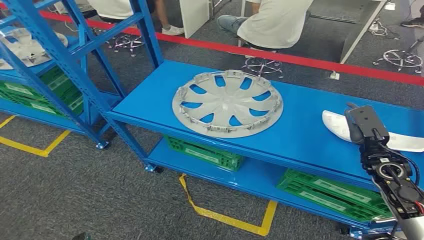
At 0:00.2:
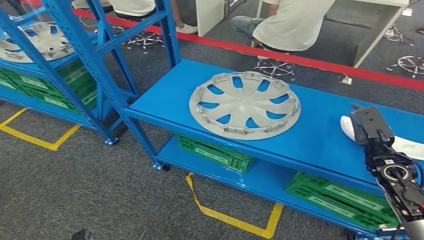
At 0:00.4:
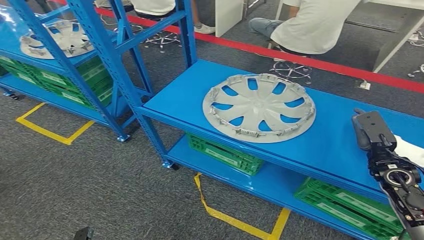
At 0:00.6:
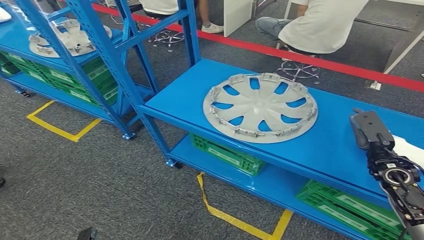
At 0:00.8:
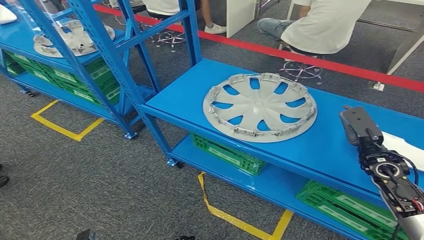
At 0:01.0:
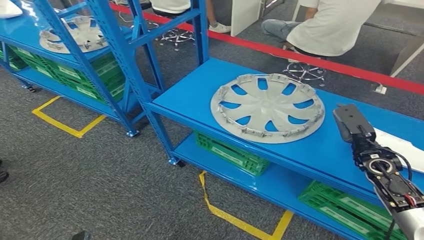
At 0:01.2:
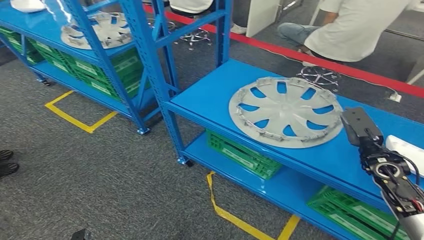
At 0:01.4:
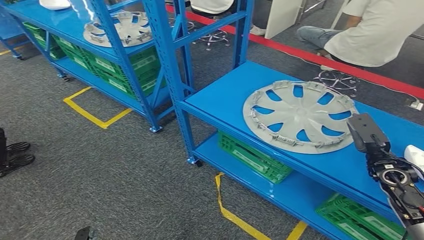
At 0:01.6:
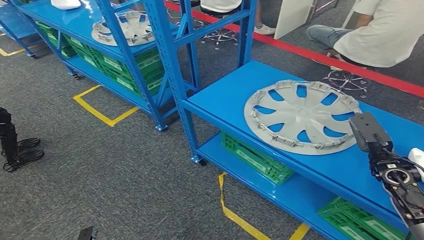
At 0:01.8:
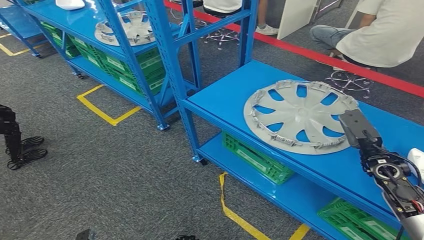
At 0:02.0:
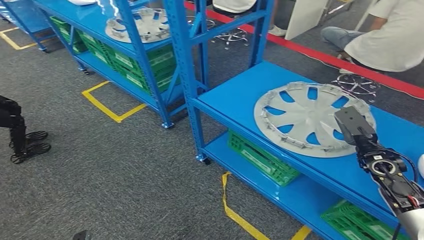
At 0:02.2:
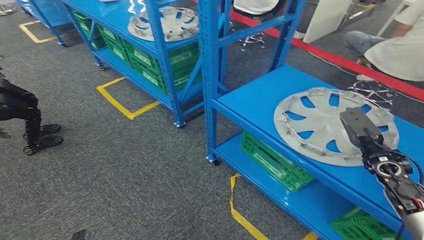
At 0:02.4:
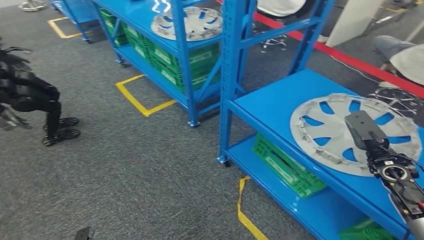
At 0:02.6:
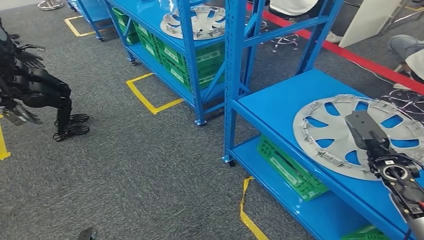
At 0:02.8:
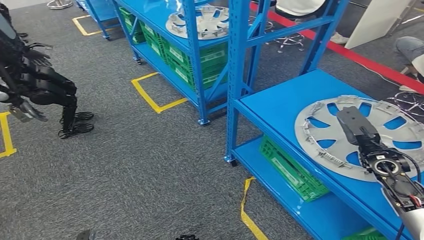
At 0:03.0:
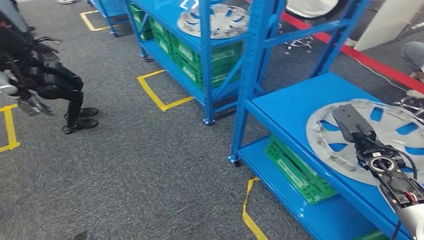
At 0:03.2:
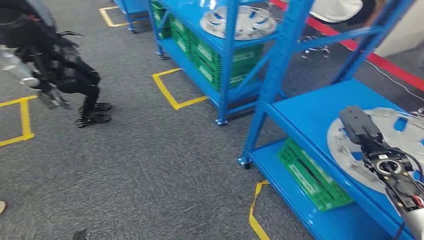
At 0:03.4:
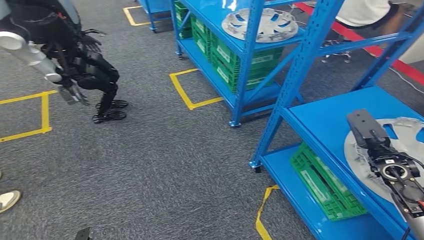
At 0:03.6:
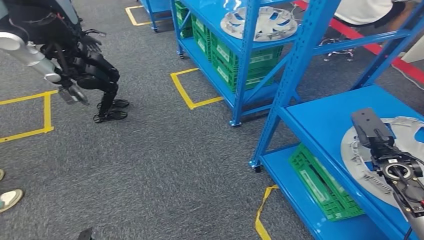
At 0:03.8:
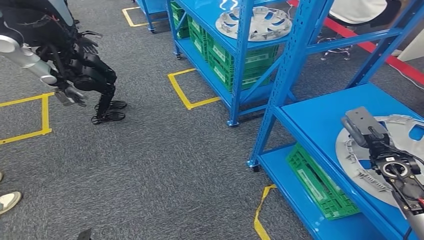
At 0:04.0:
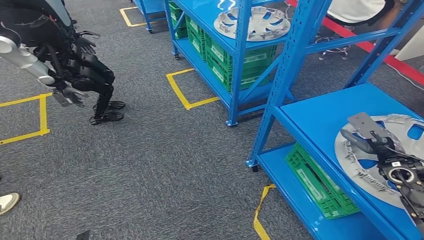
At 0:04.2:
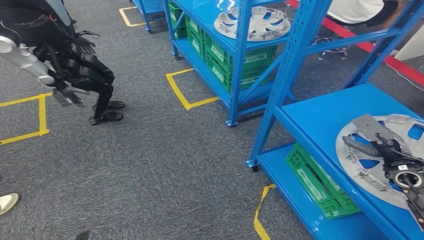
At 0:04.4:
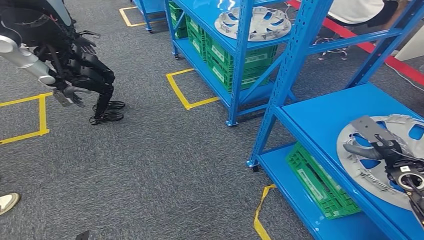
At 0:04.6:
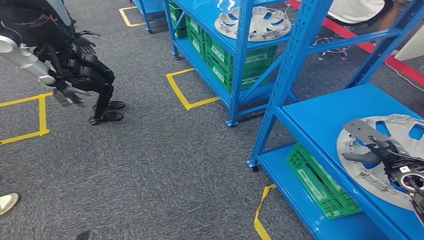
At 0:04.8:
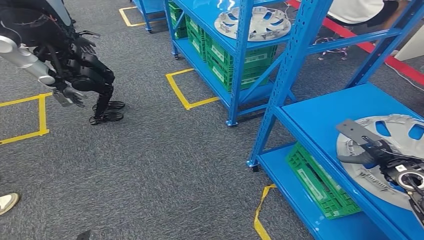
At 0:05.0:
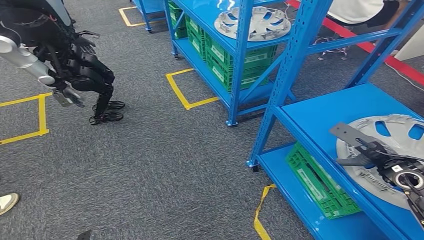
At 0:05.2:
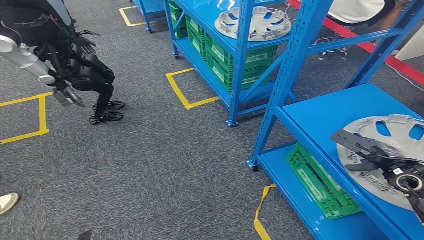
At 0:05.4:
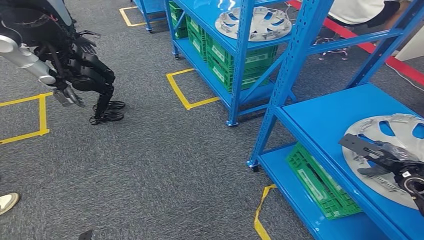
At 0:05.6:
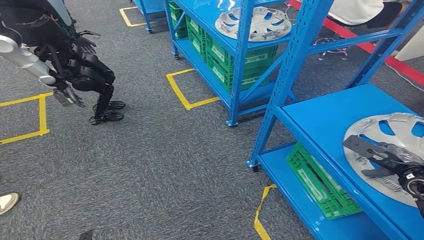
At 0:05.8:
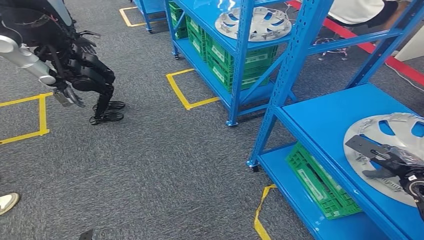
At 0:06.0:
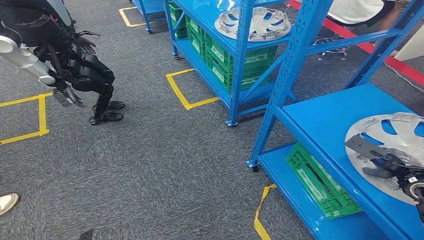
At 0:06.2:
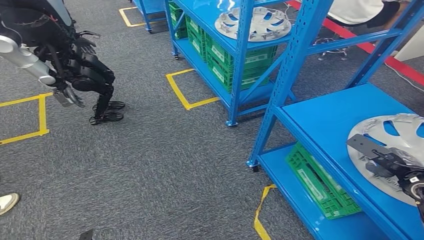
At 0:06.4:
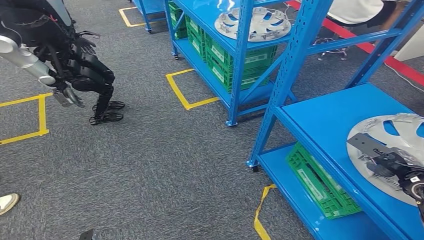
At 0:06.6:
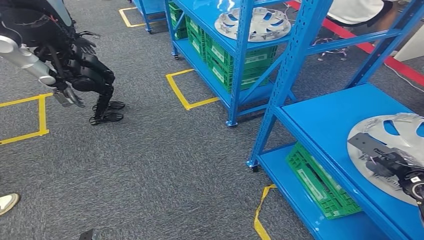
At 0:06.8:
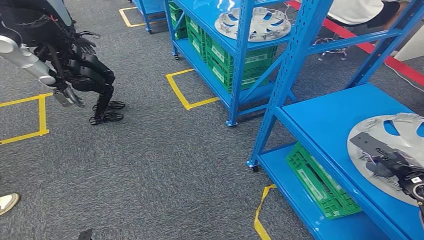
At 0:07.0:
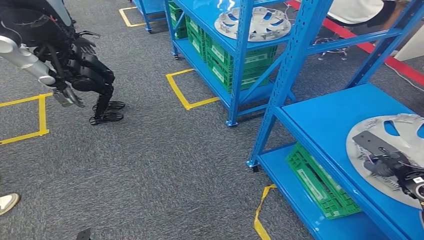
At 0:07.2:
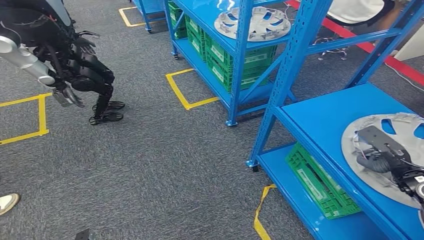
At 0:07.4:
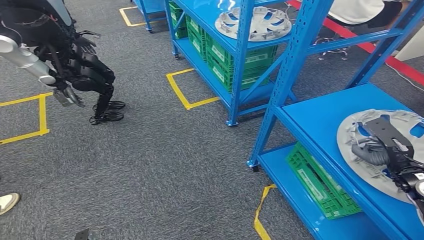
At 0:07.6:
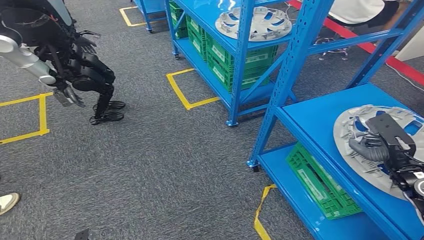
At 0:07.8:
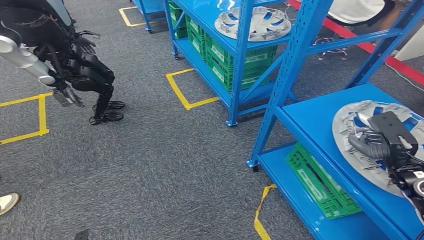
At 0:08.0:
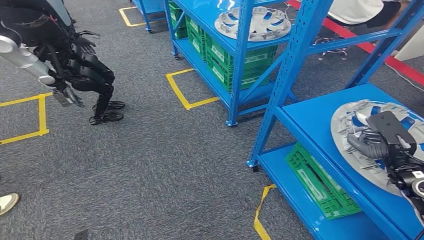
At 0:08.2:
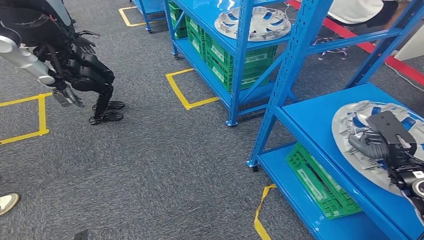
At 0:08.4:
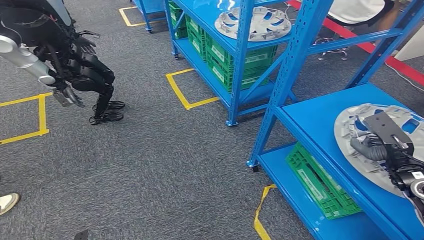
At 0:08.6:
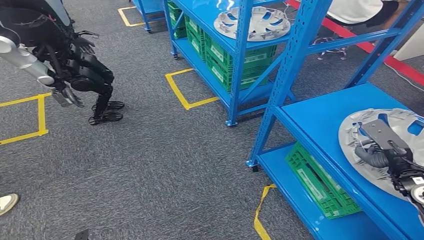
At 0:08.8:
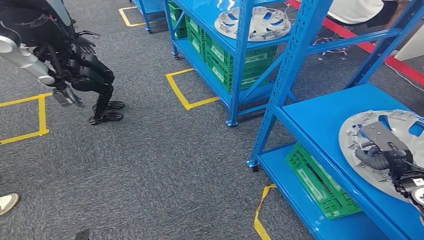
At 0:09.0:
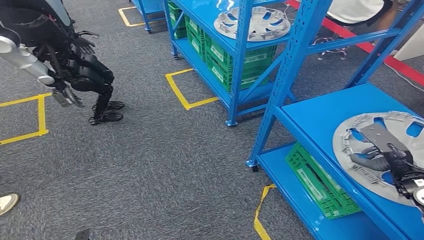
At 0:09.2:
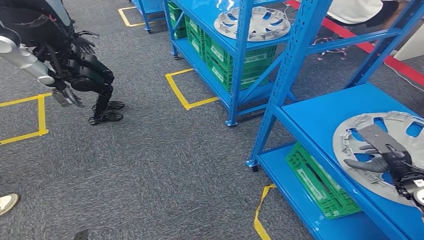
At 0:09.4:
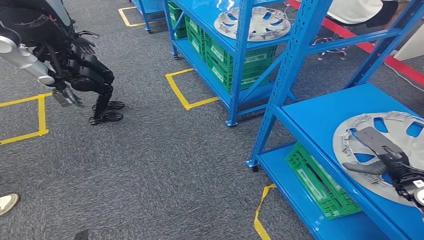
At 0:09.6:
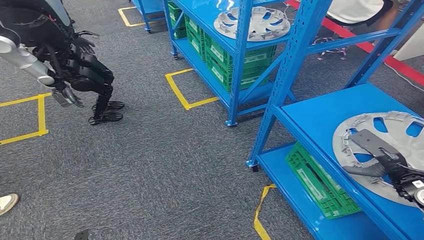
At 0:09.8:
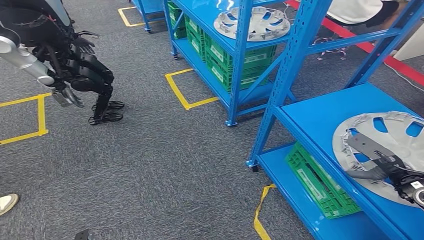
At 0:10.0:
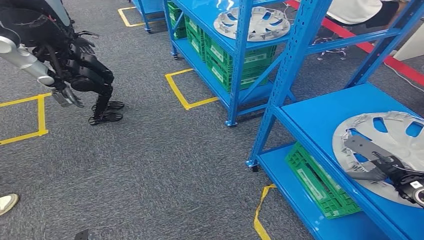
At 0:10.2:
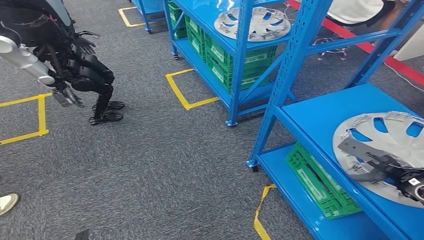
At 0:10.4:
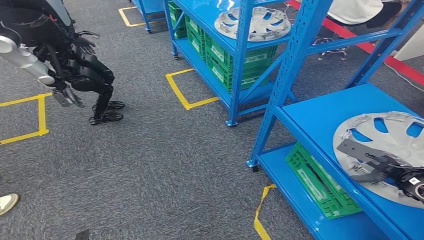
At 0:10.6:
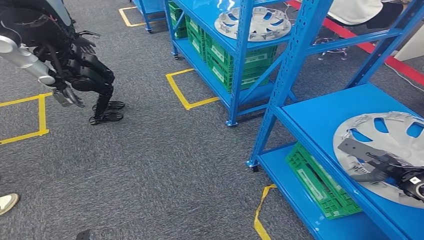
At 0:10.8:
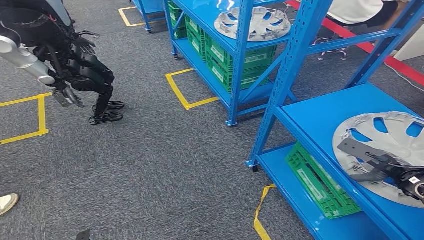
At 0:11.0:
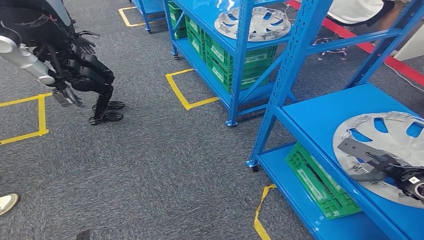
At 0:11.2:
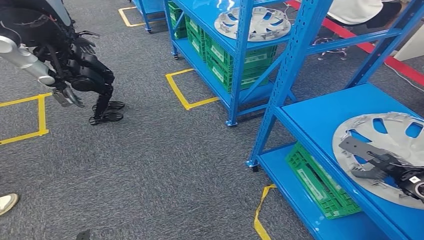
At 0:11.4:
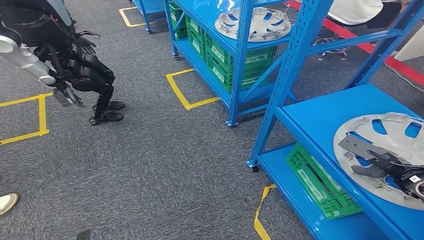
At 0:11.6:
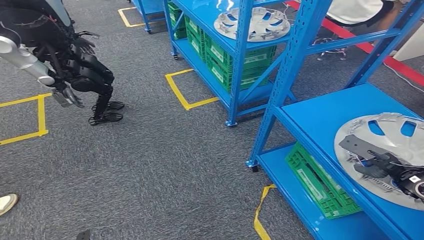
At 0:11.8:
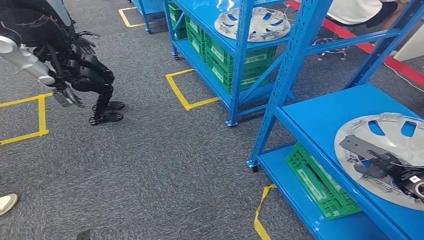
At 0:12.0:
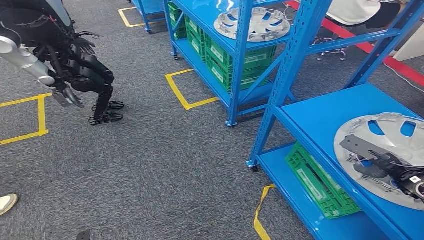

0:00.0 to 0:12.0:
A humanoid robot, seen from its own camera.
0:07.6 to 0:09.0: The hands make only small movements.
0:10.4 to 0:12.0: The hands stay close to where they were, moving slightly.

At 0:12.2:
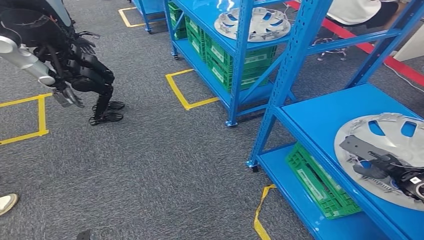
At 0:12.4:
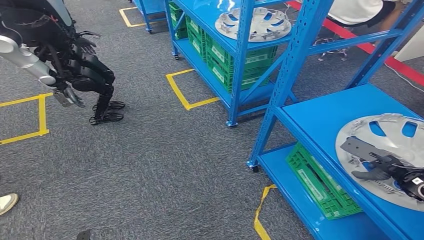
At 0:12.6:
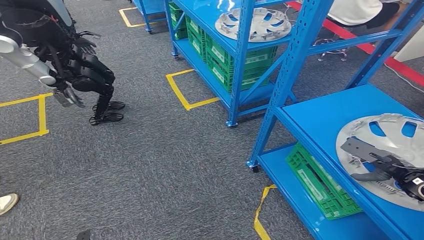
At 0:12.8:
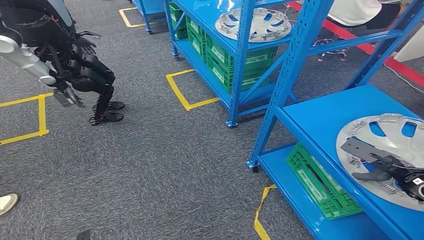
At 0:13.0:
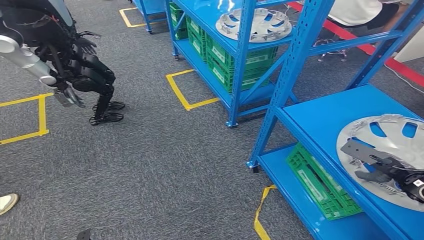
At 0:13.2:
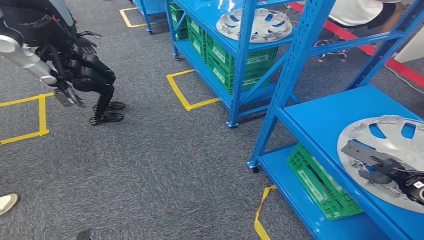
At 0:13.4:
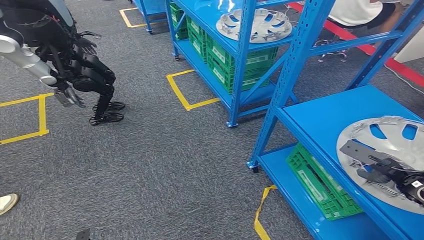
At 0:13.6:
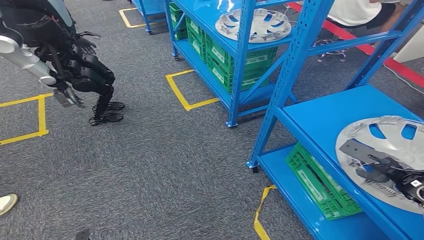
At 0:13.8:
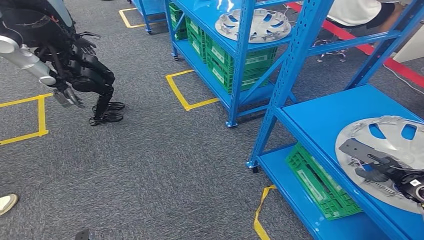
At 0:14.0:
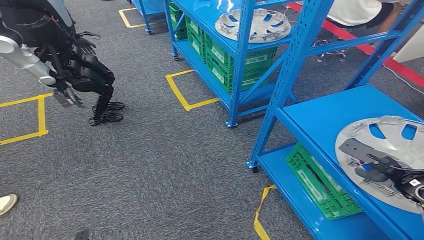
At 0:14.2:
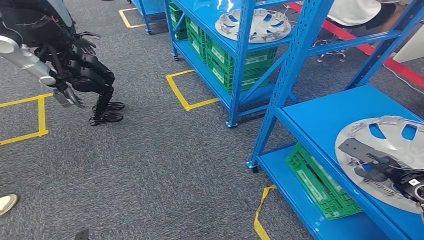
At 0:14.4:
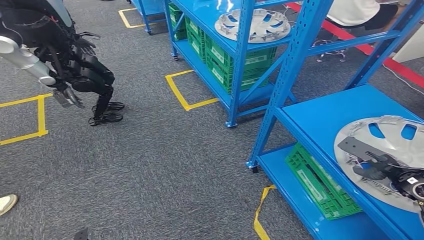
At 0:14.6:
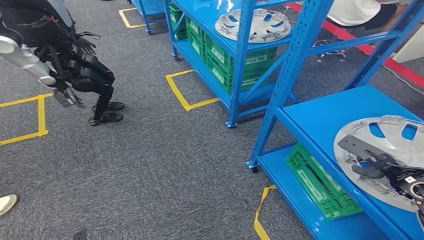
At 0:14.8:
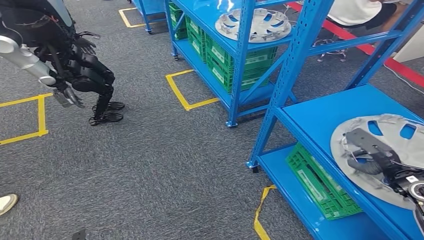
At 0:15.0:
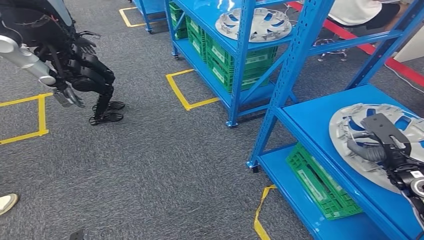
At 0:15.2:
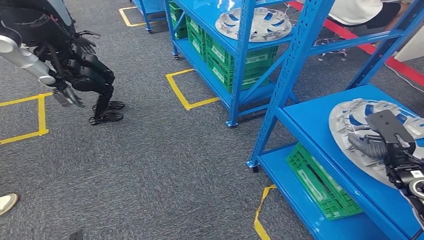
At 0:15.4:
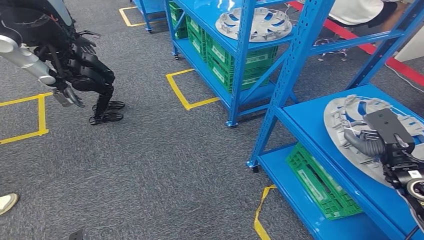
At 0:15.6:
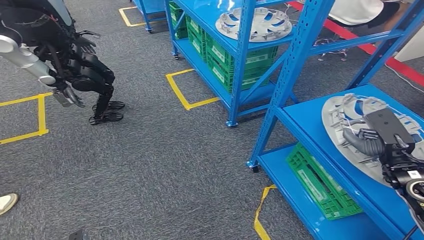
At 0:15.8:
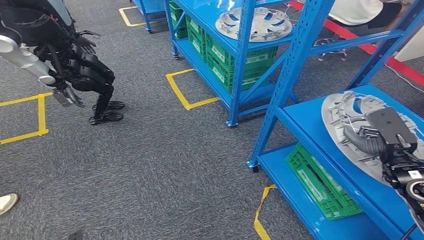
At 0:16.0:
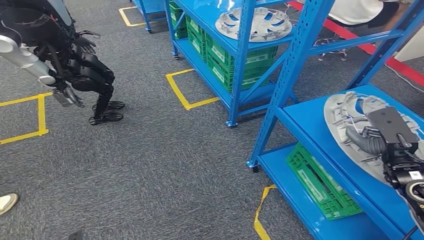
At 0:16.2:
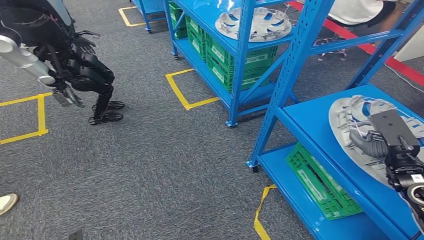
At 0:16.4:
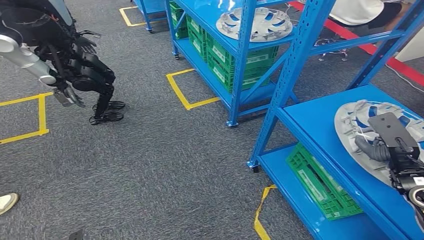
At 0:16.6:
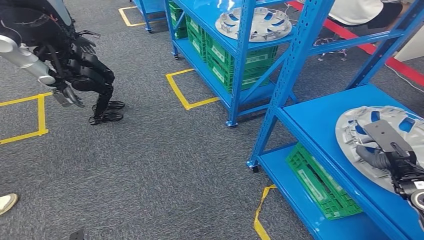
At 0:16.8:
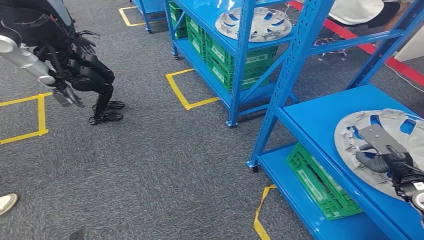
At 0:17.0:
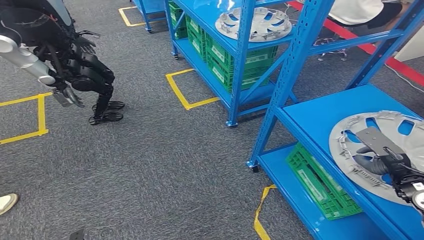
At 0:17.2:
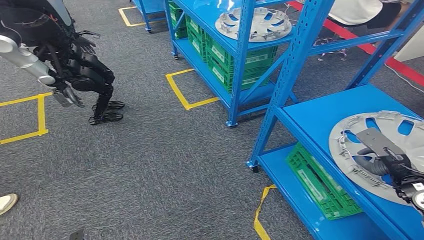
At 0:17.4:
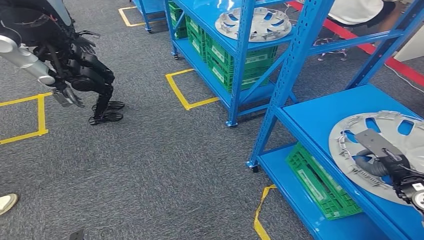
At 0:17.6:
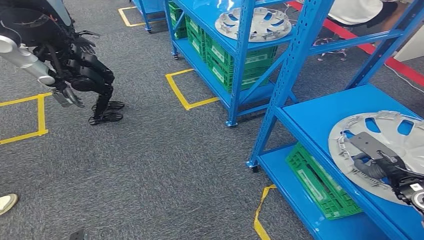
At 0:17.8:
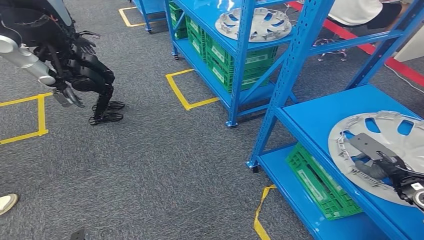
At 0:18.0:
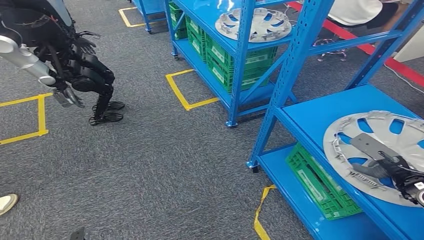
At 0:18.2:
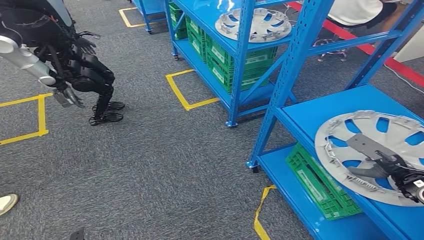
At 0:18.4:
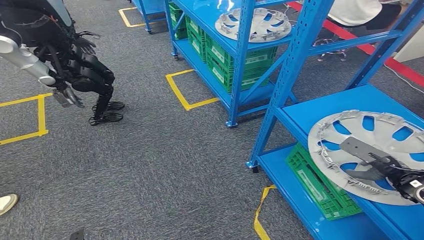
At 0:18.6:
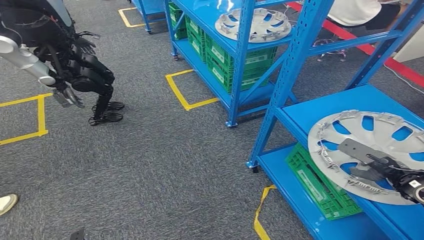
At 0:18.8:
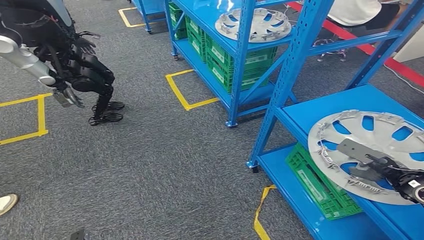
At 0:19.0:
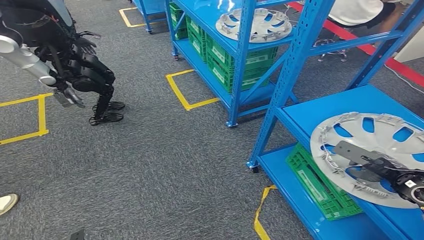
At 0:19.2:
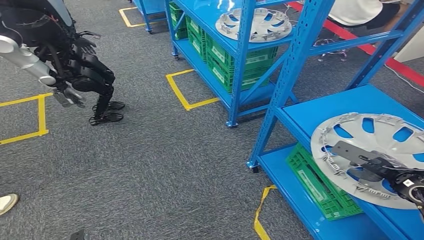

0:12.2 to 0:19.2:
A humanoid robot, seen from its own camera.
0:12.2 to 0:13.6: Both hands stay put.
0:15.0 to 0:16.4: The hands make only small movements.
0:16.4 to 0:17.8: The right hand ends up about 5 cm from where it was.
0:17.8 to 0:19.2: The hands stay close to where they were, moving slightly.
